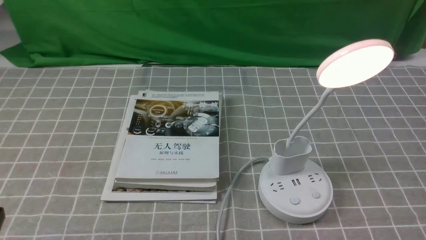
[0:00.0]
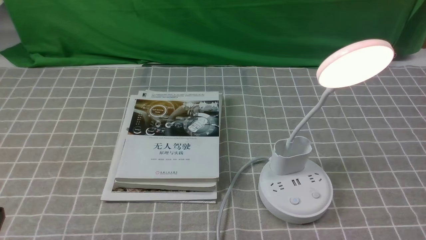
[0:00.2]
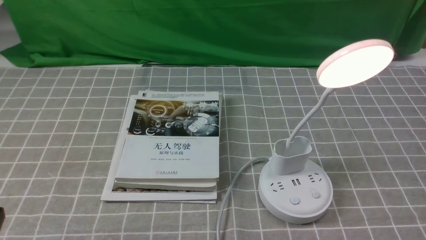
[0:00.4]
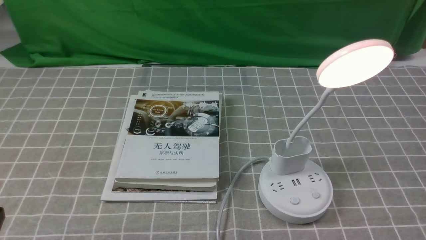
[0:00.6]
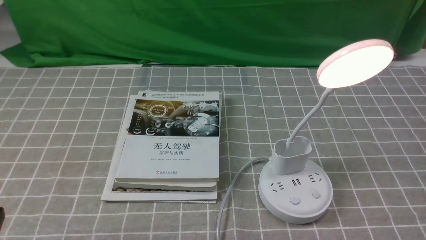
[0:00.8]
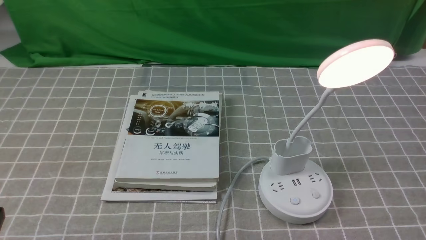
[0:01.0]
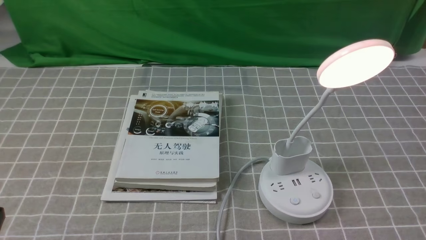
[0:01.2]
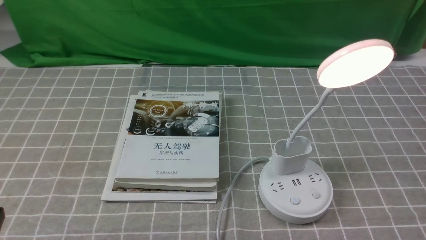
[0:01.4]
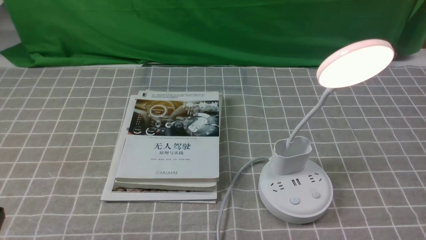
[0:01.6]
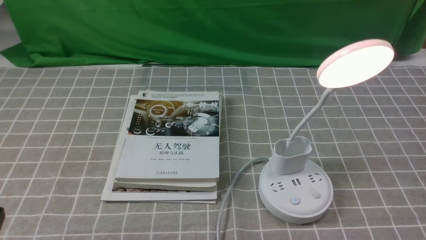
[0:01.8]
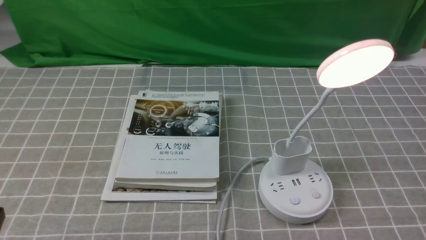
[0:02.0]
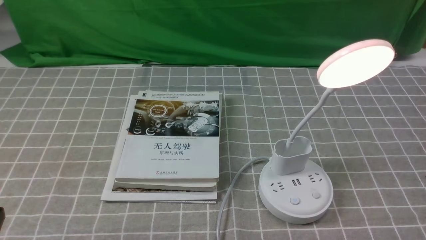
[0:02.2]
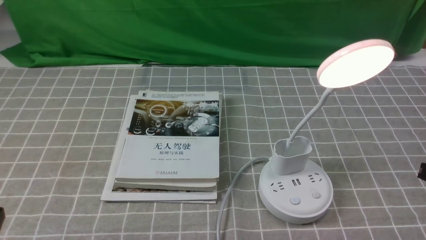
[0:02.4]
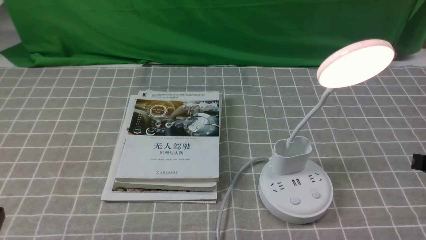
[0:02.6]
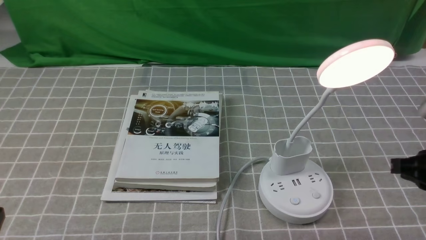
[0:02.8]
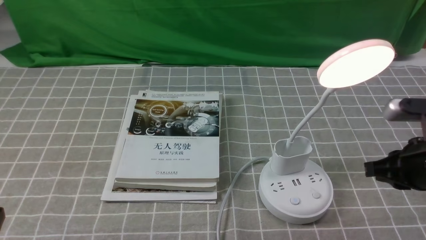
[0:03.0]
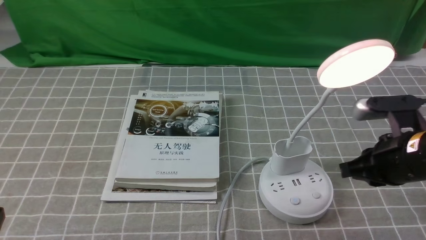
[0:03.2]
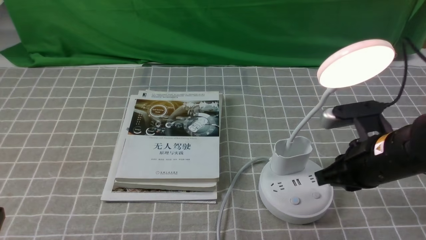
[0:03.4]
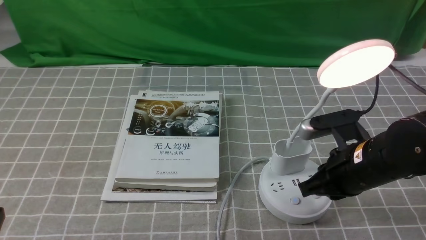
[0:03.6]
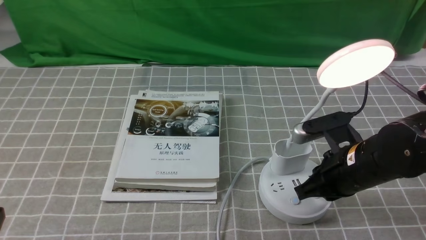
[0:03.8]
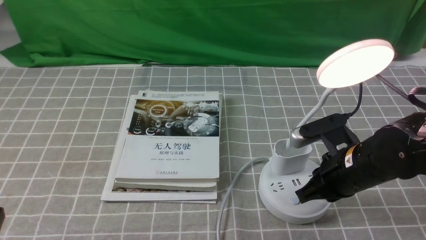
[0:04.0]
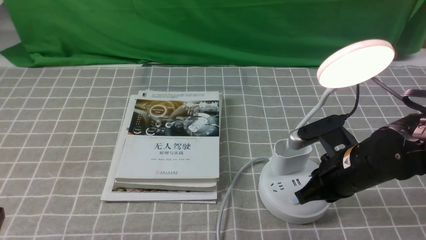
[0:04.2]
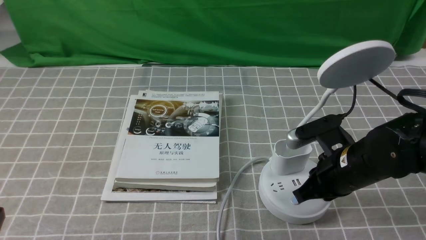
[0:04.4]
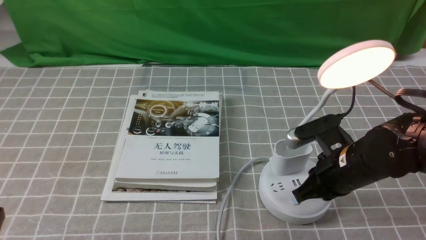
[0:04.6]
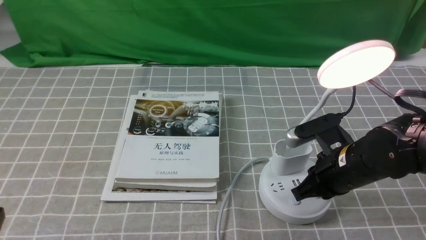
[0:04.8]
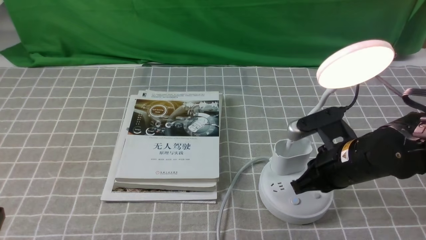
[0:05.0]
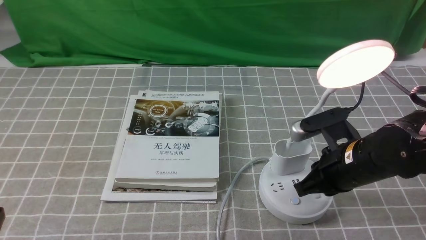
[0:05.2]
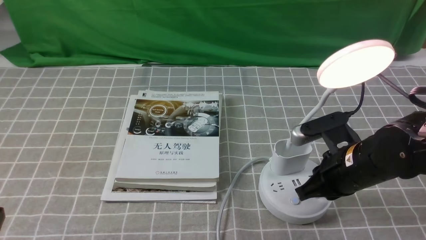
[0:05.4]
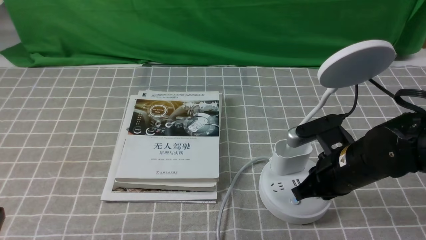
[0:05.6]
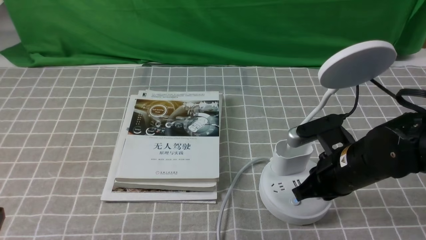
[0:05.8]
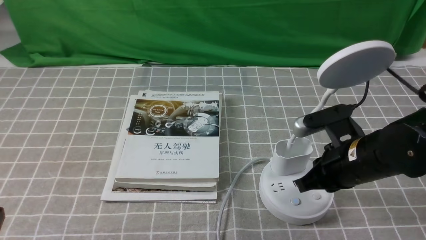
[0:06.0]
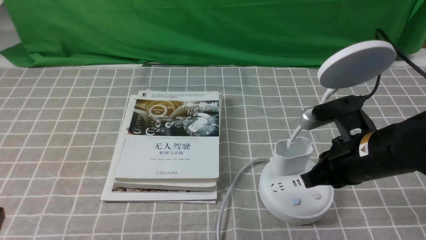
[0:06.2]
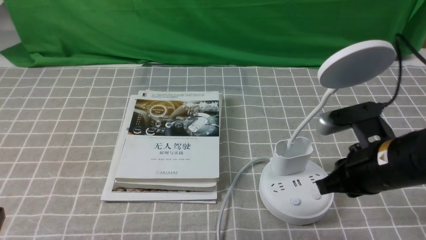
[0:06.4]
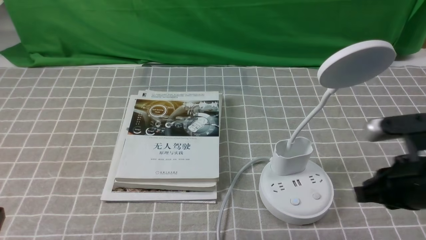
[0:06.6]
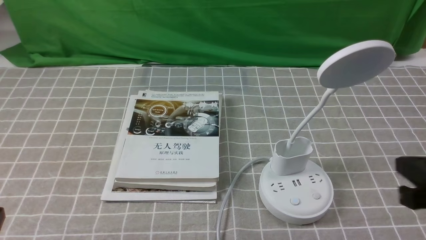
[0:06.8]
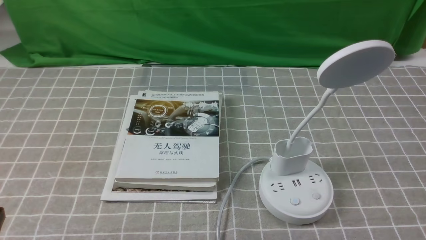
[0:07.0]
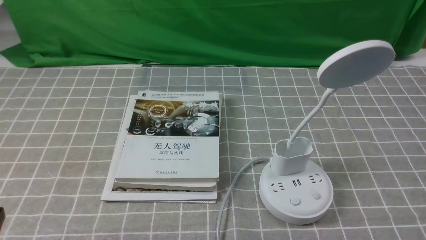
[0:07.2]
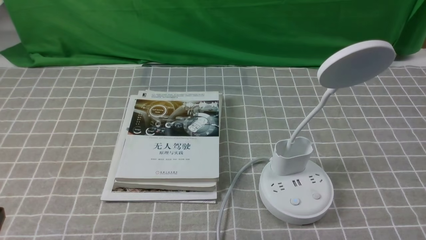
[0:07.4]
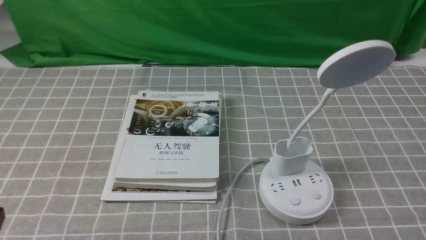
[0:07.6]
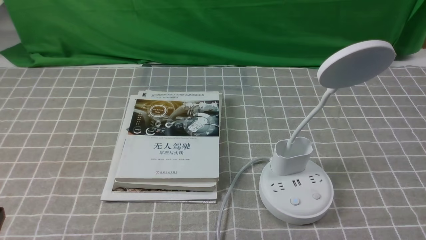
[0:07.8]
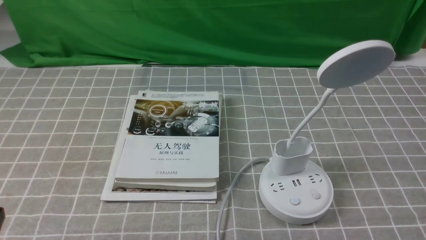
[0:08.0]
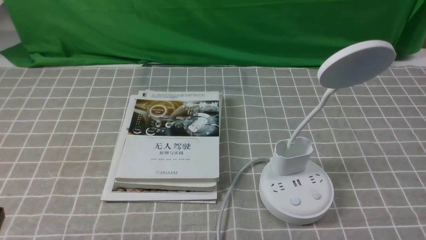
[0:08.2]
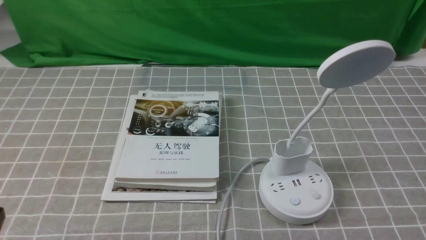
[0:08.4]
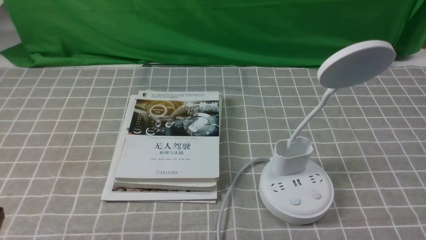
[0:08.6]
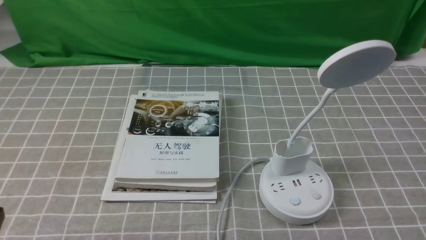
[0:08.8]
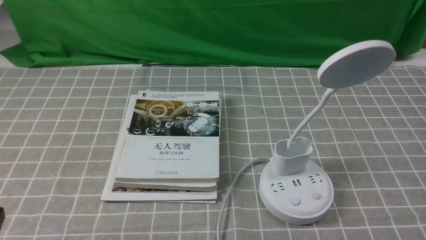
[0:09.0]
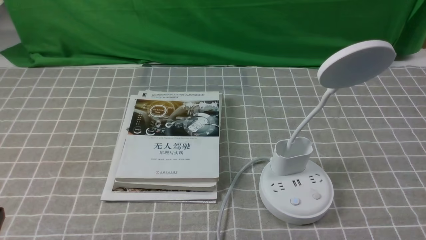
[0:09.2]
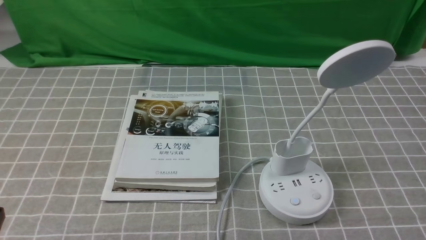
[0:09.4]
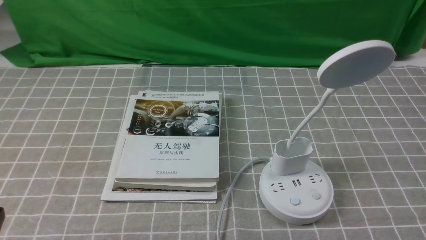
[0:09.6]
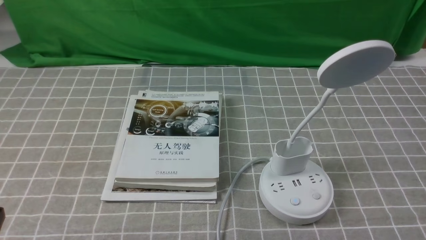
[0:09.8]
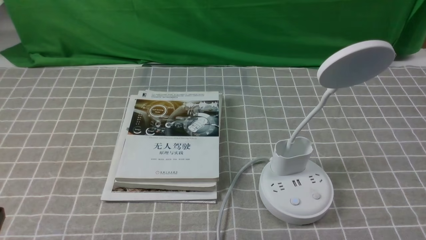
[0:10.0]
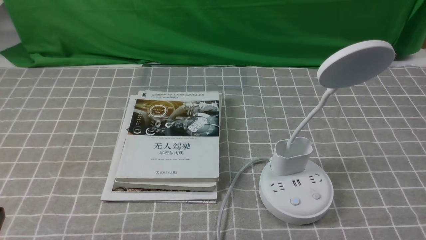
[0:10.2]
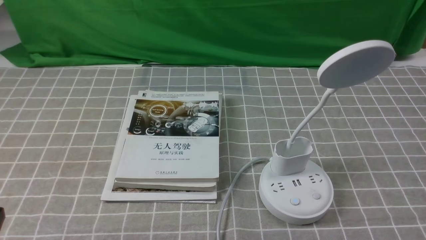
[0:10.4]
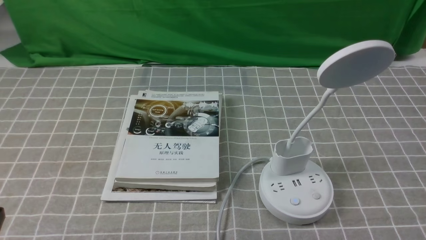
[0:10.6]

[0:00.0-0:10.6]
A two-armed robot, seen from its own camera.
Task of the whole recording: turn off the desk lamp on the grey coffee tablecloth by hand.
Step, 0:00.0 to 0:06.0: use the right arm to press the button switch on the lamp holder.
0:01.6 to 0:03.0: The right gripper shifts some 15 cm forward.
0:03.0 to 0:04.6: The right gripper moves to the left and downward, roughly 10 cm, and opens up.
0:04.6 to 0:06.0: The grippers move only a little.
0:06.0 to 0:07.6: The right gripper shifts about 20 cm backward, to the right and upward, and closes.

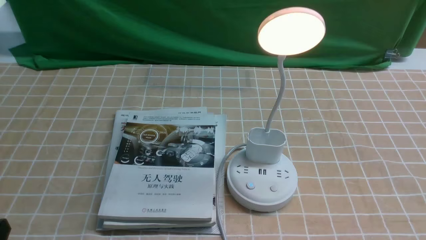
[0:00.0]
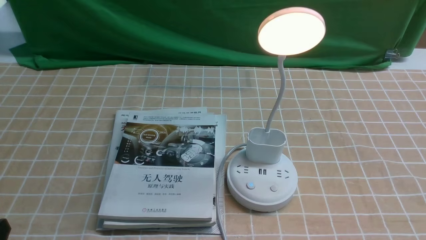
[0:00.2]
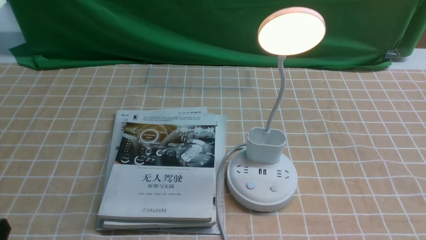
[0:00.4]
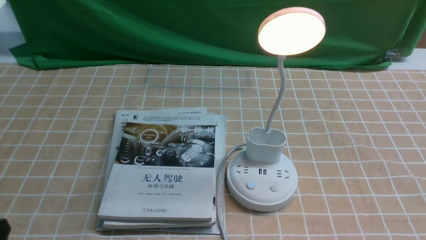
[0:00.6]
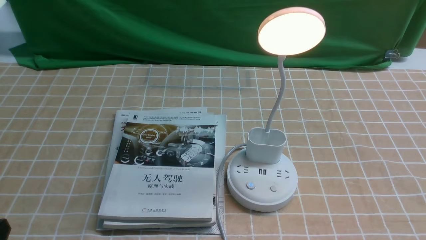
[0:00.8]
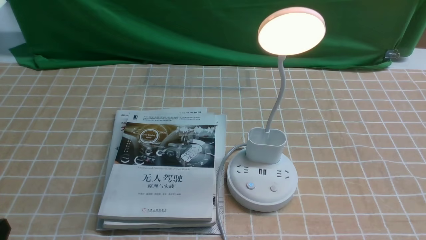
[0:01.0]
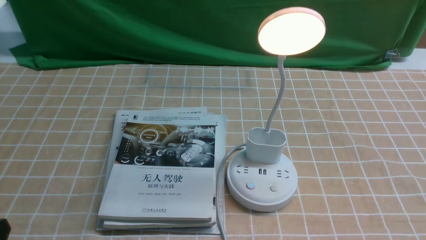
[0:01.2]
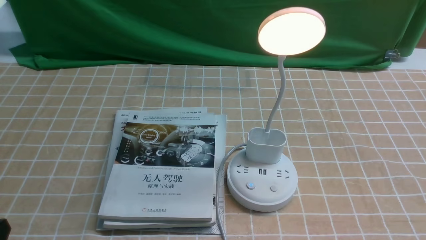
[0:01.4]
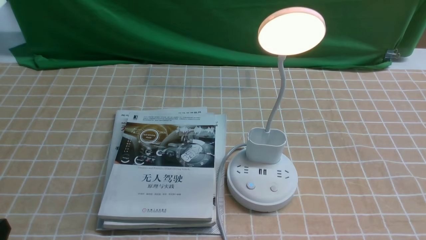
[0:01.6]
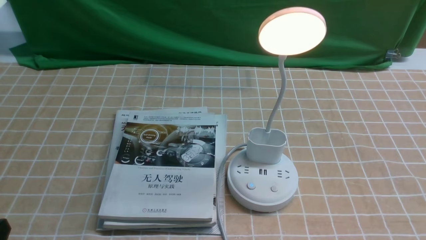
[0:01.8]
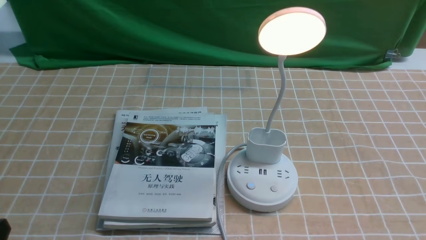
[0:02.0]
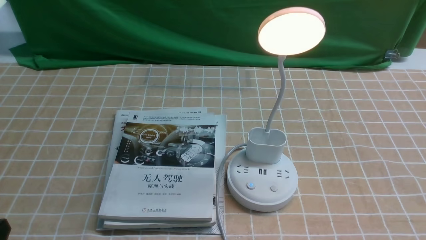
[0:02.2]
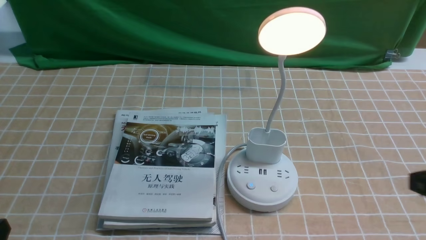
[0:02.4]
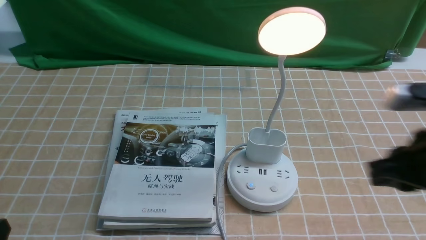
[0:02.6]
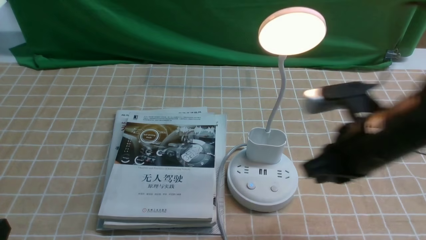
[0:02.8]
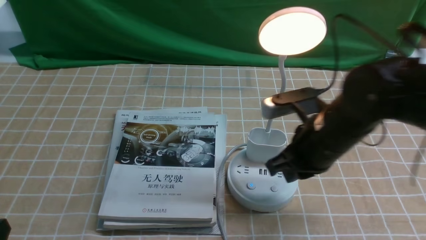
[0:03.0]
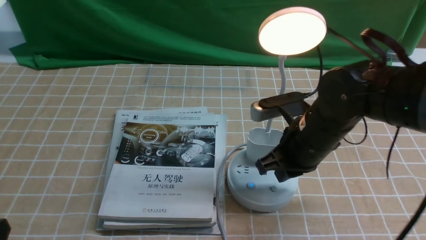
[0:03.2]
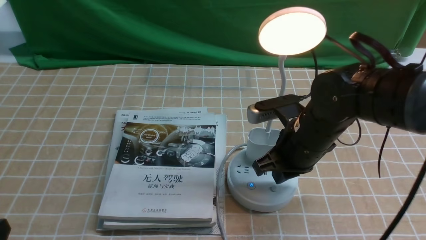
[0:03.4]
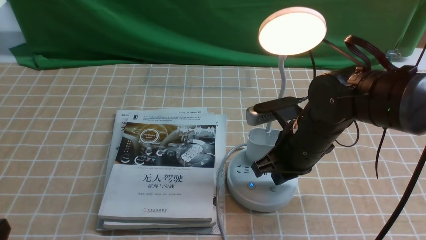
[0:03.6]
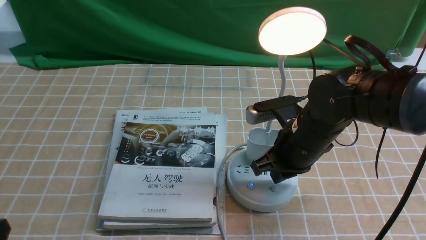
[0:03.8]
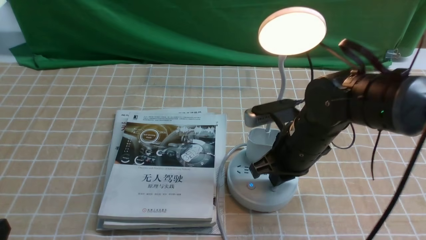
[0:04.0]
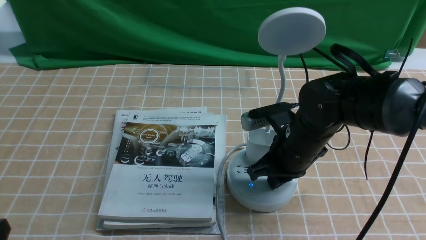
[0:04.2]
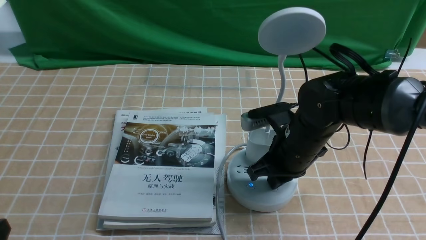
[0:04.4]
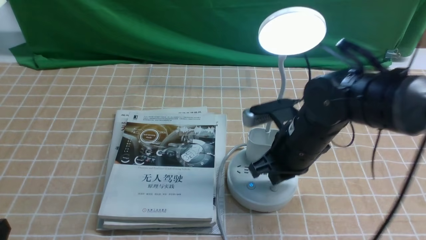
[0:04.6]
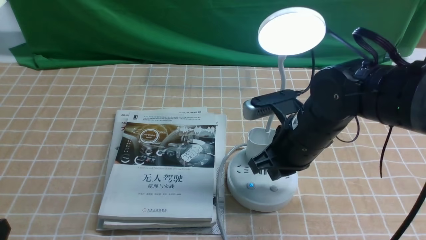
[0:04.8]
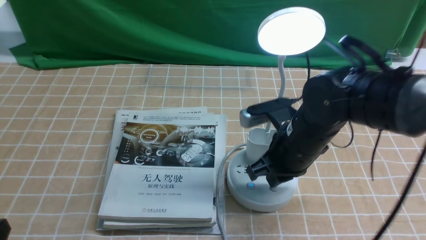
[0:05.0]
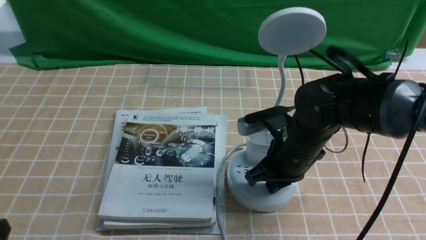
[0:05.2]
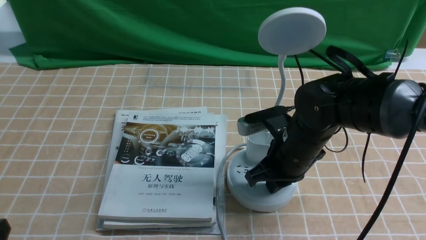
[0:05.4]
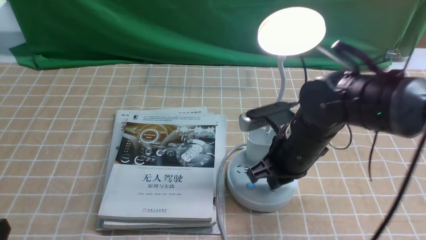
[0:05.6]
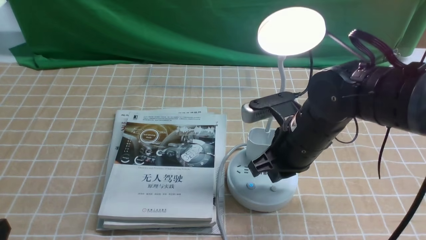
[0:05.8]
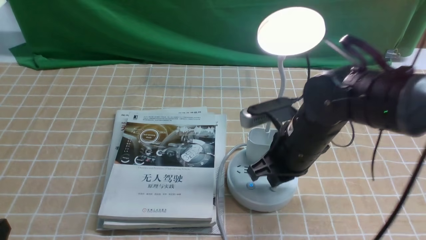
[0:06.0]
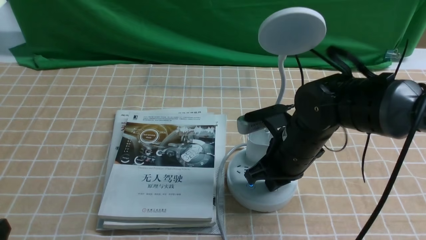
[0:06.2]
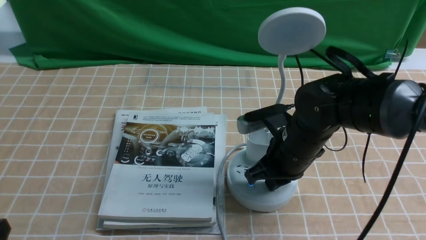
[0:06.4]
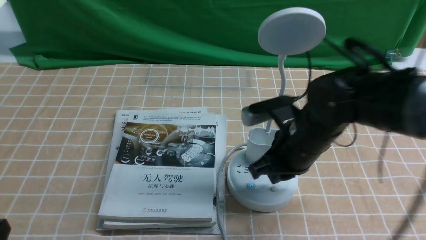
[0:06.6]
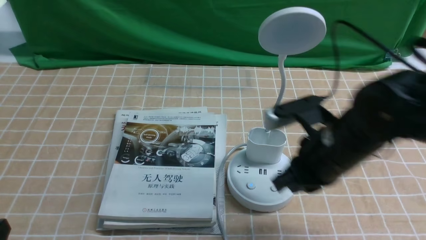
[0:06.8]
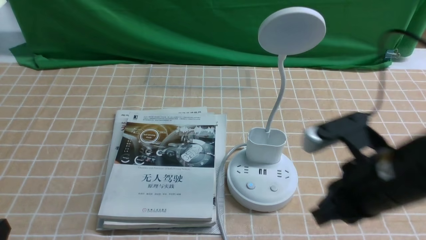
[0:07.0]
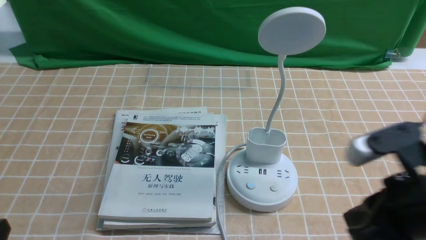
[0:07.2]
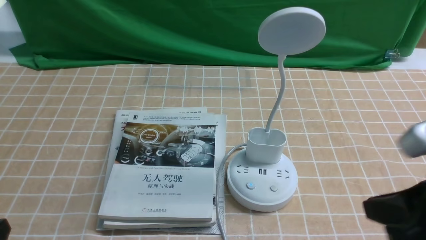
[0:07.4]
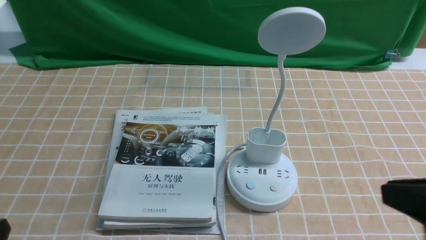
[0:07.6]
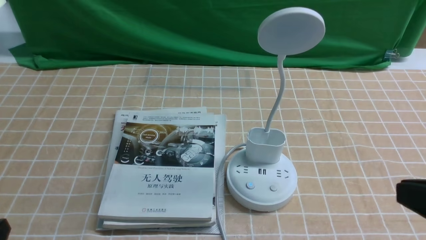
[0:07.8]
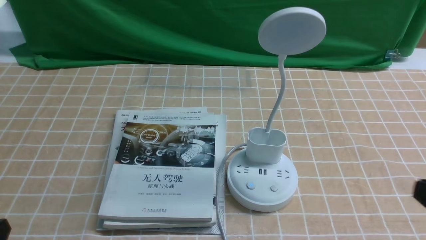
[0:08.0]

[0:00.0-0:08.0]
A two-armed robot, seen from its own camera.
Task of the whole recording: turn off the desk lamp on the light coffee tablecloth by hand.
Step, 0:00.0 to 0:06.6: use the right arm to press the button switch on the lamp holder.
0:01.6 to 0:03.2: The right gripper travels forward and to the left by some 30 cm, and closes up.
0:03.2 to 0:06.4: The grippers stay close to where they were, moving slightly.
0:06.4 to 0:08.0: The right gripper is displaced backward, to the right and upward by roughly 30 cm.
